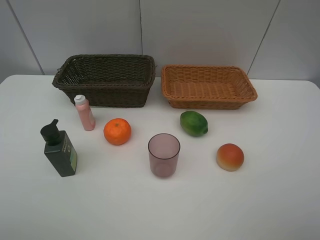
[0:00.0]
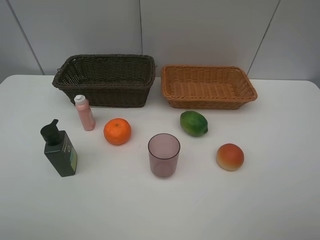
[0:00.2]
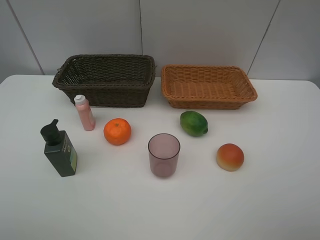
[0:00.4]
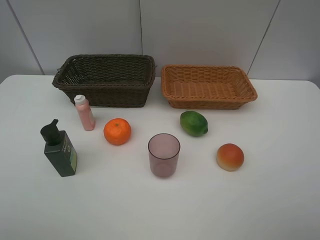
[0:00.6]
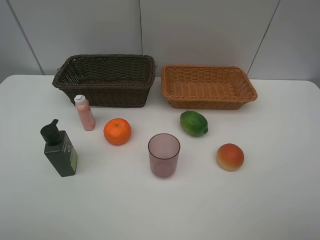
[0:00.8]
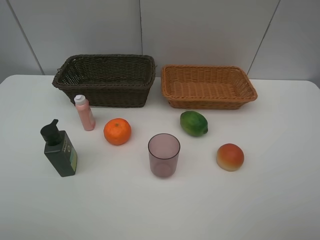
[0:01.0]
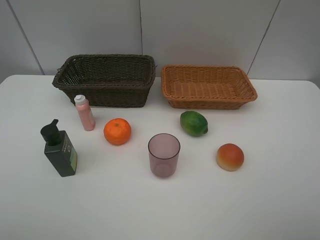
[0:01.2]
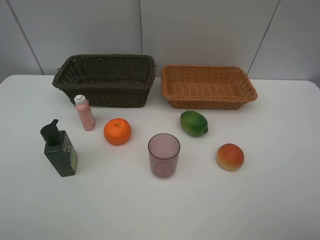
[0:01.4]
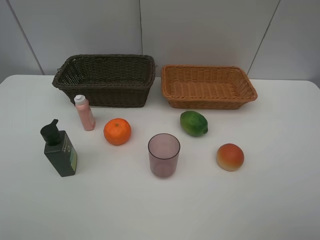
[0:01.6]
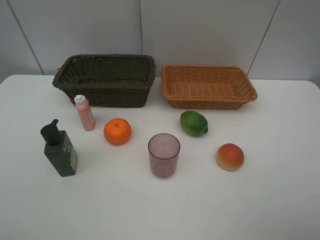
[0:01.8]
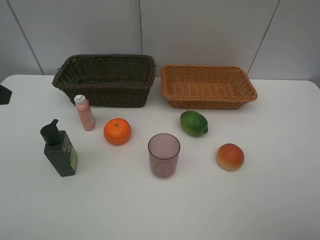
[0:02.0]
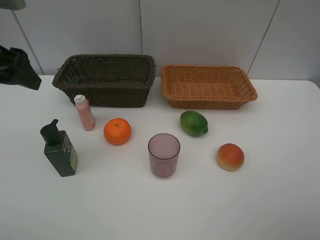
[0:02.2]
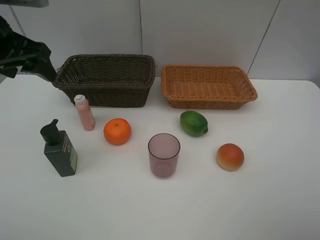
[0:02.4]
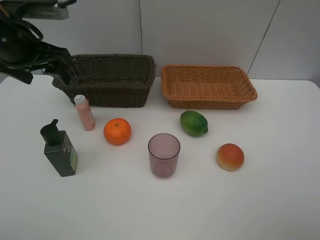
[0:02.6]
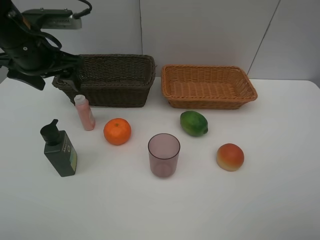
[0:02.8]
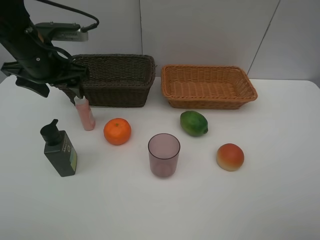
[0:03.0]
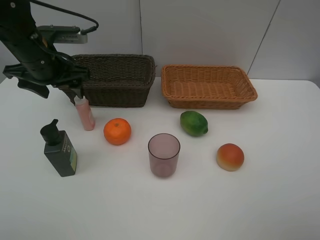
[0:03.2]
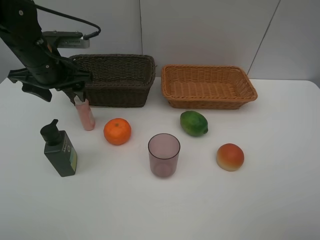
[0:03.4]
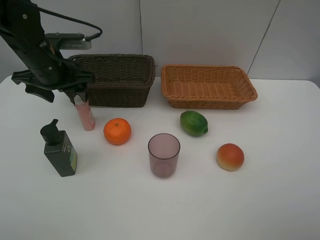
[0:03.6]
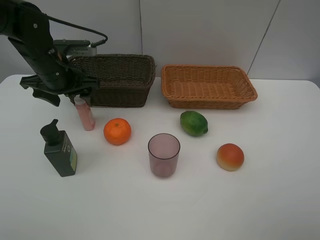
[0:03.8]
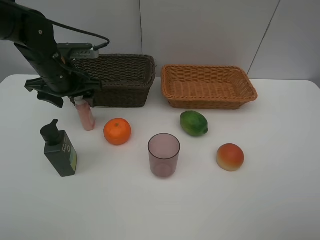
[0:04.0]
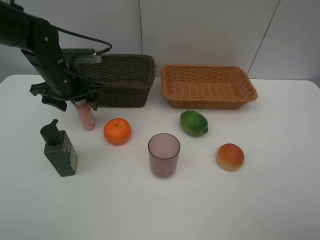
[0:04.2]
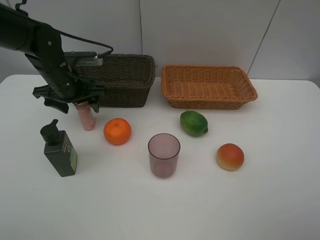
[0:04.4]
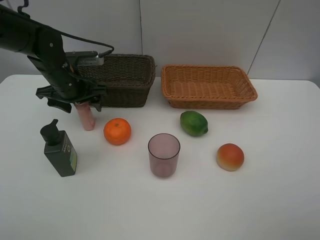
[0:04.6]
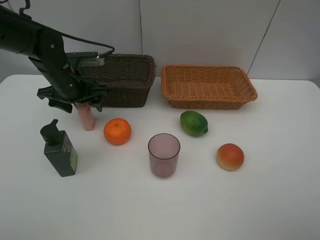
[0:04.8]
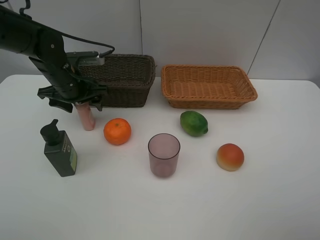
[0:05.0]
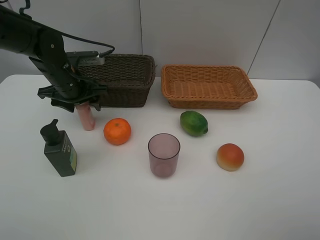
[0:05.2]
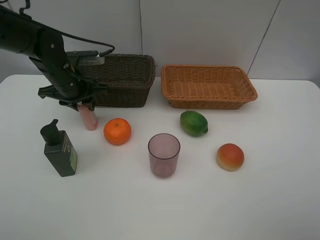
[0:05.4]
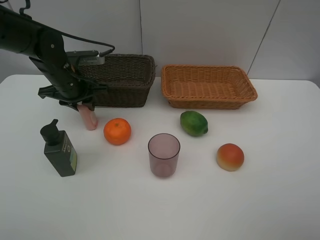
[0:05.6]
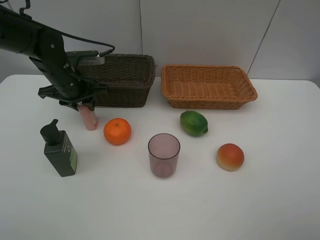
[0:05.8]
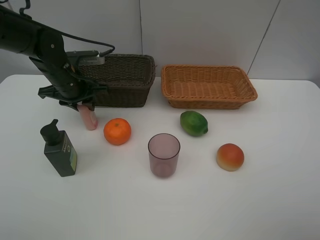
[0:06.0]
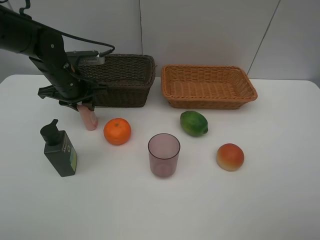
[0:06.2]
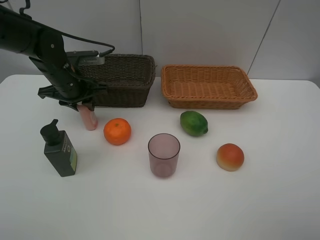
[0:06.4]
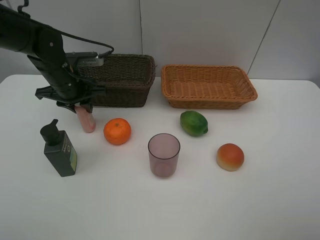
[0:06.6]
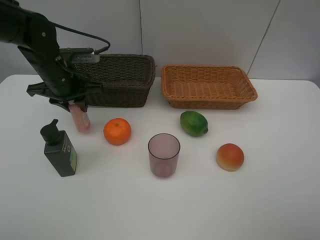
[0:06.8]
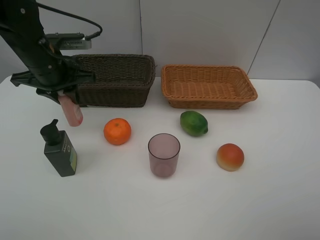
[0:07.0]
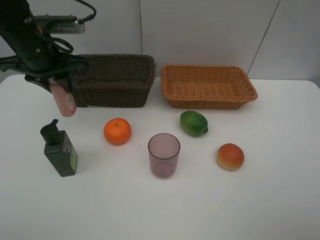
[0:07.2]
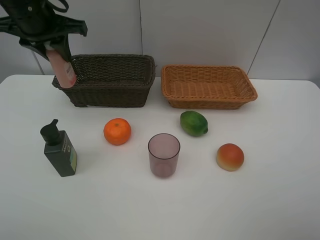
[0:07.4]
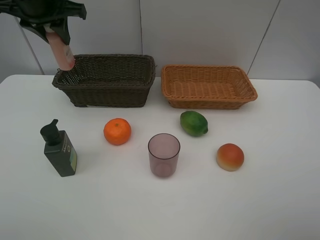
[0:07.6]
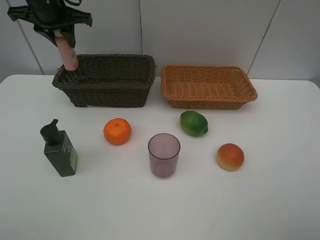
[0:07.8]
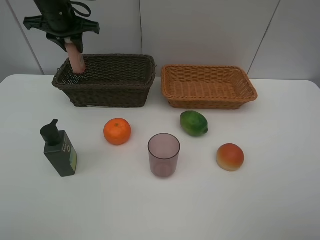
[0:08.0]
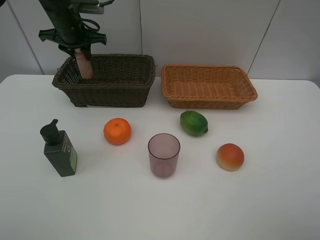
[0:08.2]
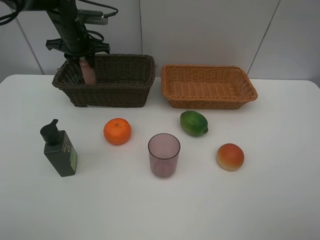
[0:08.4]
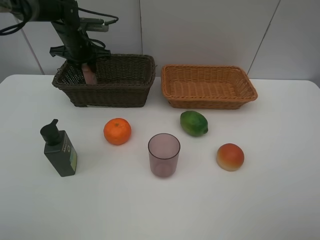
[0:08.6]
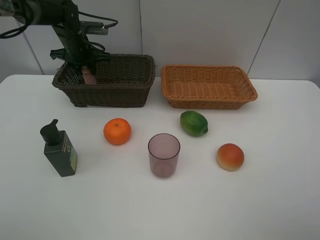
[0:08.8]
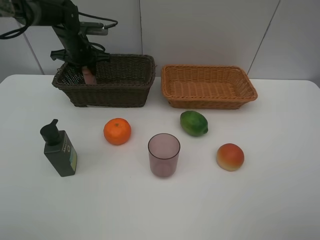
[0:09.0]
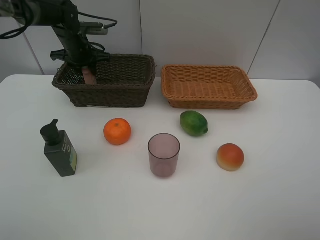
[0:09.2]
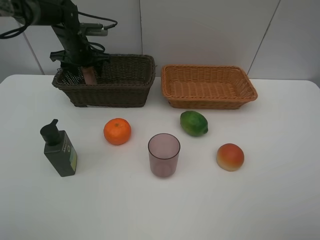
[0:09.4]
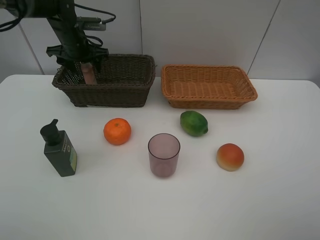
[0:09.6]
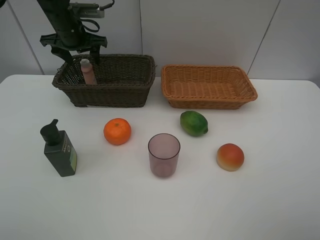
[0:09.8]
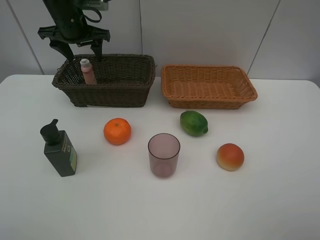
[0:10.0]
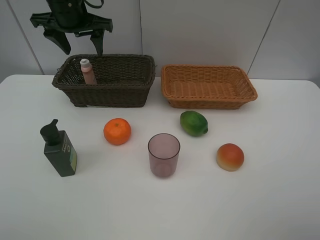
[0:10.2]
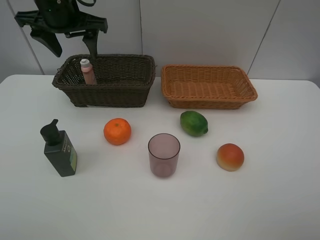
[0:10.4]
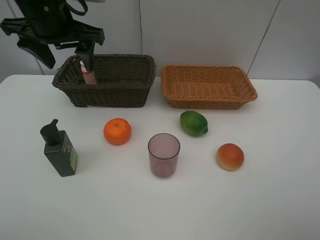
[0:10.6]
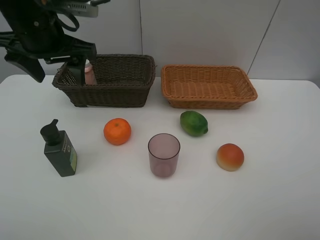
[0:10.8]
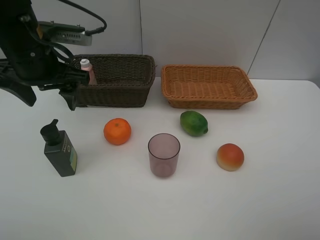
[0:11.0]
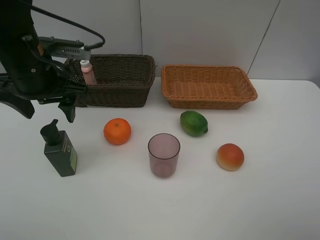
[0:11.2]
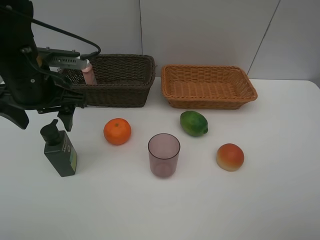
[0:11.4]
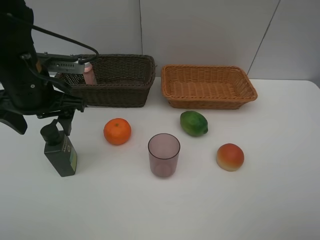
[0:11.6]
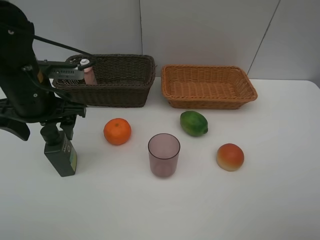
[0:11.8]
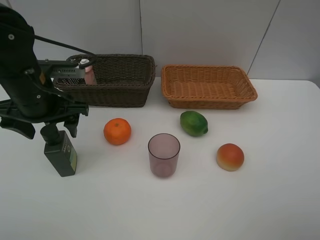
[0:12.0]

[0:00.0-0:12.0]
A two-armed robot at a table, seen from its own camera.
Task of the whole recording: place multiple objects separately in different baskets.
0:01.6 to 0:03.0: The left gripper moves forward and downward, some 30 cm.
0:03.0 to 0:04.4: The left gripper is displaced downward by some 5 cm.
0:04.4 to 0:06.0: The left gripper closes.
0:06.0 to 0:07.6: The left gripper shifts approximately 15 cm upward.
0:07.6 to 0:09.0: The left gripper goes some 20 cm downward and forward.
0:09.0 to 0:10.4: The left gripper is displaced upward and backward by some 20 cm, and opens.
0:10.4 to 0:12.0: The left gripper shifts roughly 15 cm backward and downward.

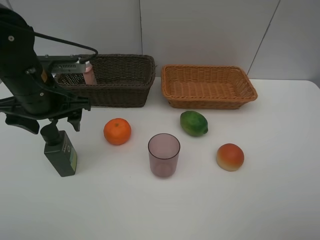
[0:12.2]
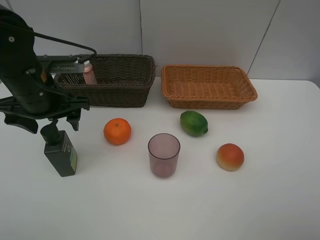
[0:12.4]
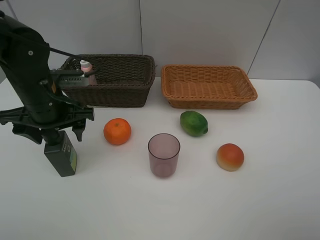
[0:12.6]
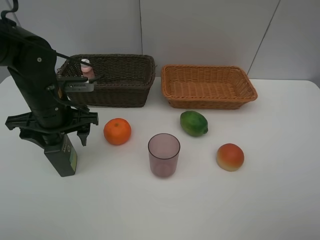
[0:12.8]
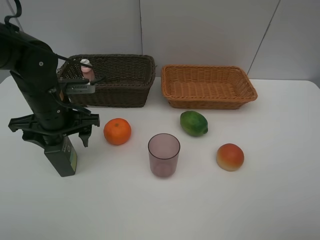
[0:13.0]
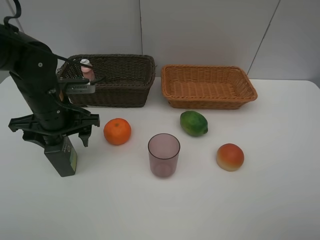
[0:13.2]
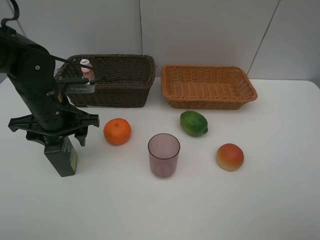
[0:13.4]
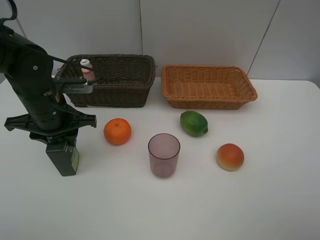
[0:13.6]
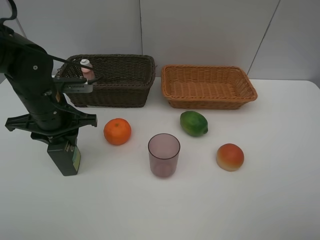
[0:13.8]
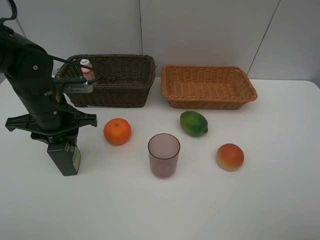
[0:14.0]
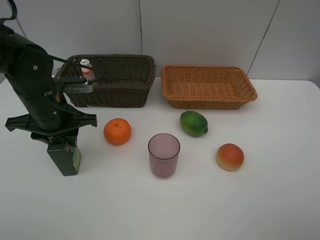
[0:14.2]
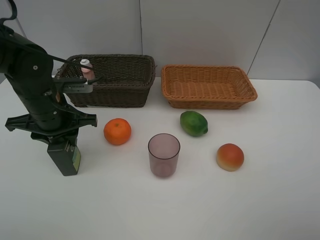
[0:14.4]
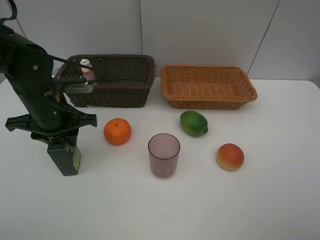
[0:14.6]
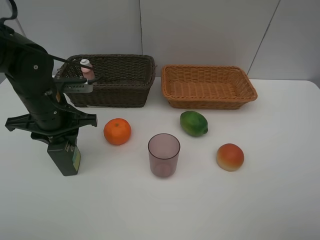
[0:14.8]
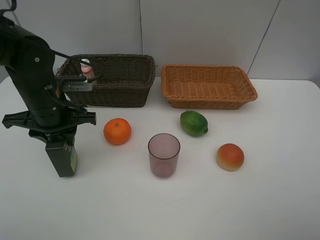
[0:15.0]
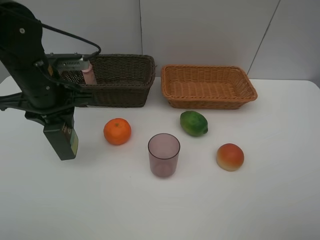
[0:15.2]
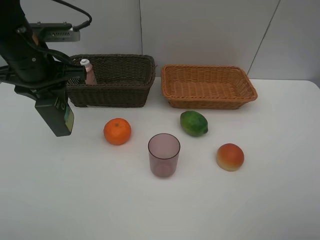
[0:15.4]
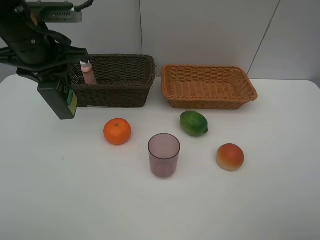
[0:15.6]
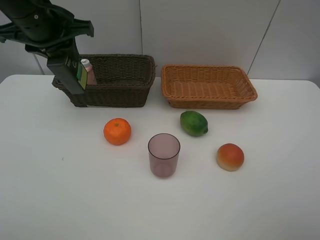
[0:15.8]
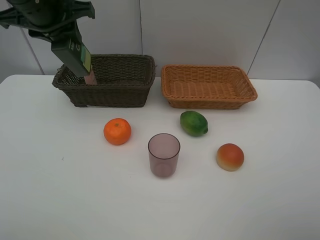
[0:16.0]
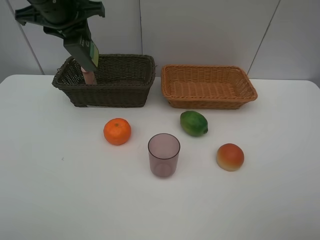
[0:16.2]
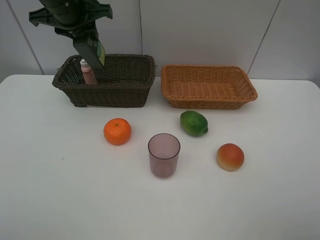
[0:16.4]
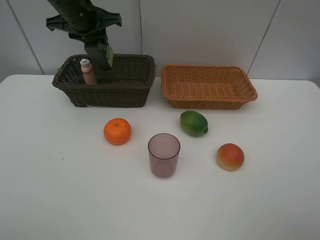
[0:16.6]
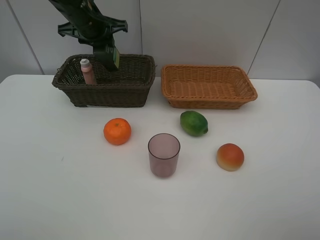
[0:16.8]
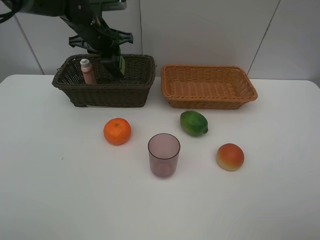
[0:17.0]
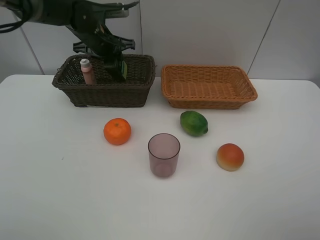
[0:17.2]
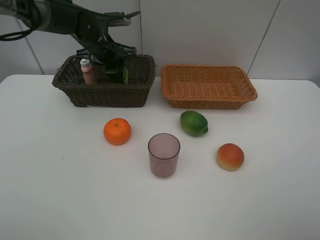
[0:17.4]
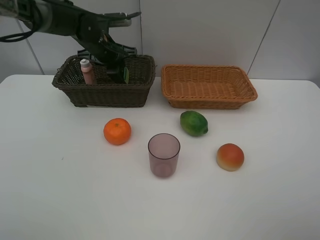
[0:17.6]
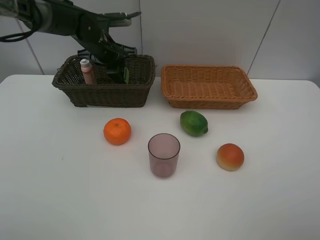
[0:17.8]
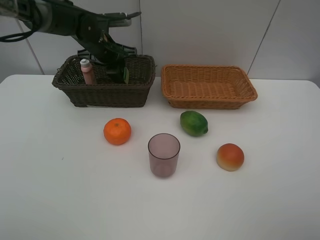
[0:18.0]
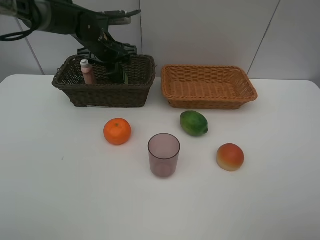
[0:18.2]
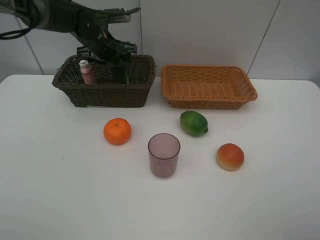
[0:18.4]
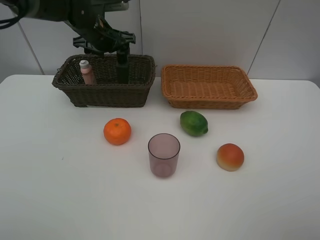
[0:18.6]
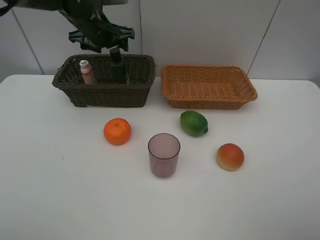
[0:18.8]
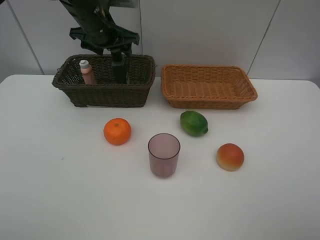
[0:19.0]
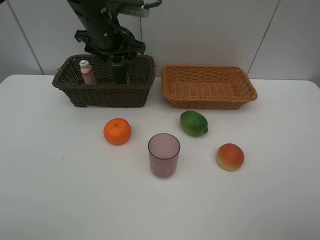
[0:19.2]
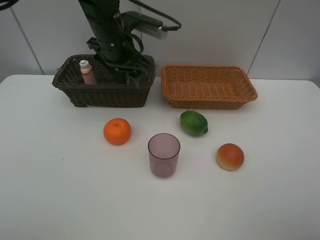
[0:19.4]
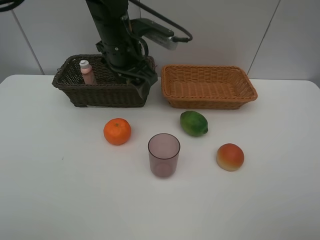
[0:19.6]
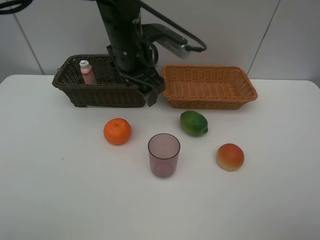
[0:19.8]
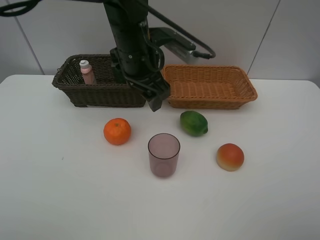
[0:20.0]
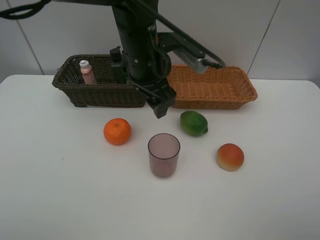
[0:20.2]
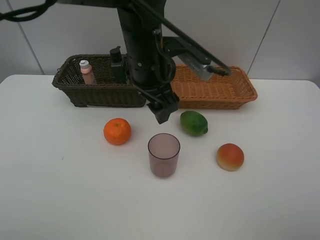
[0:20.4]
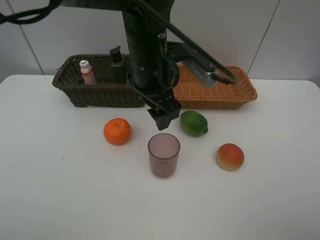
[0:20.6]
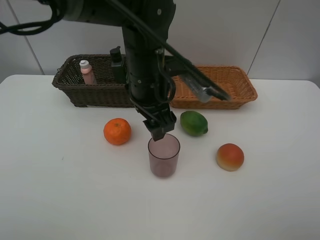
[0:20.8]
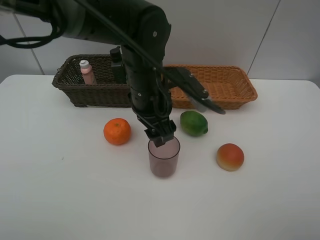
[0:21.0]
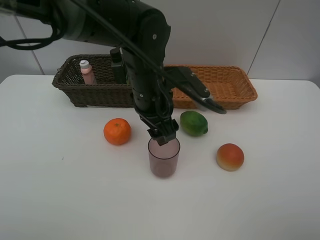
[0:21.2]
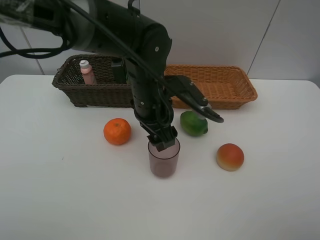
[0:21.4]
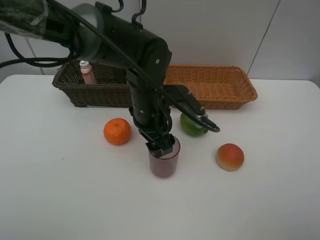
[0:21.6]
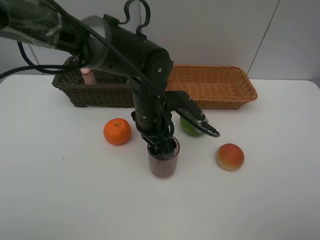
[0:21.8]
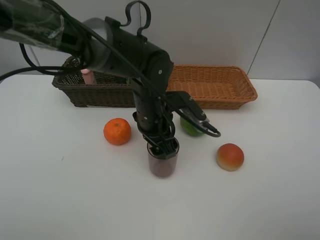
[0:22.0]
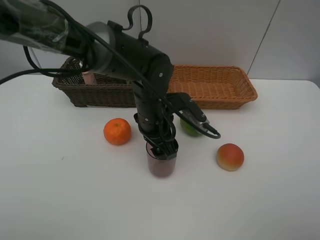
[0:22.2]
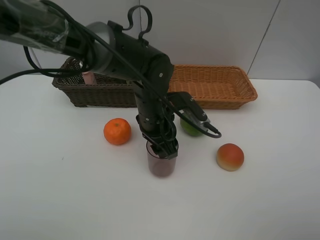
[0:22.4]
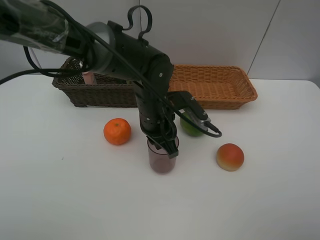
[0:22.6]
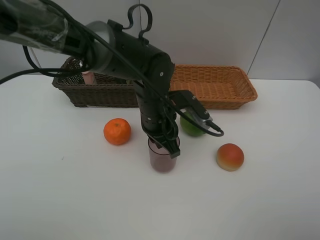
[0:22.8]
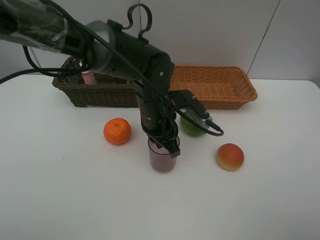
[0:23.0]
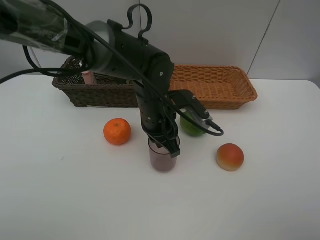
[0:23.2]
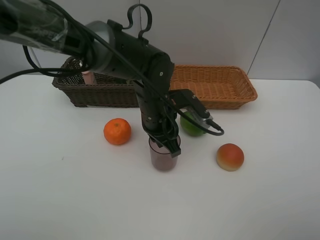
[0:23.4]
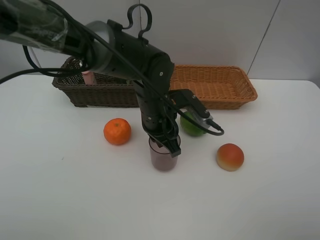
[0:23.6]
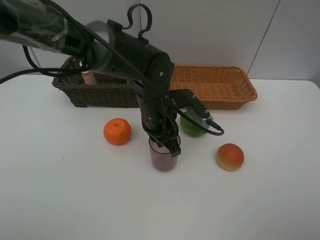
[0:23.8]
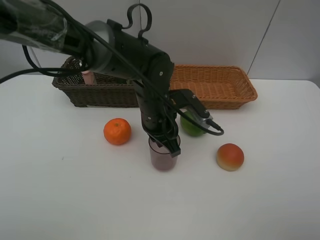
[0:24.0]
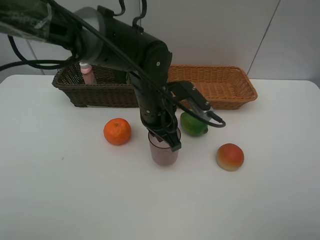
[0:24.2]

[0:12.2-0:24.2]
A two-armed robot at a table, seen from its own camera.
Task of the whole recording: place multiple objects separately in different baskets.
0:12.2 to 0:13.8: The left gripper heads downward, covering roughly 5 cm, and closes.
0:13.8 to 0:15.2: The left gripper heads upward, covering about 5 cm.
0:15.2 to 0:16.6: The left gripper shifts about 15 cm forward and upward.
0:16.6 to 0:18.2: The left gripper is displaced downward by some 10 cm, and opens up.
0:18.2 to 0:19.8: The left gripper shifts about 20 cm backward, to the right and upward.
0:19.8 to 0:21.2: The left gripper goes roughly 5 cm backward.
0:21.2 to 0:22.6: The left gripper heads downward, covering roughly 5 cm, and closes up.
0:22.6 to 0:24.2: The grippers move only a little.
